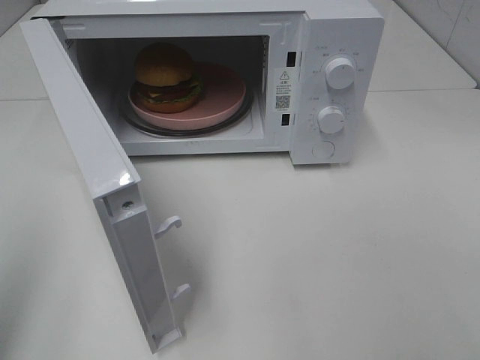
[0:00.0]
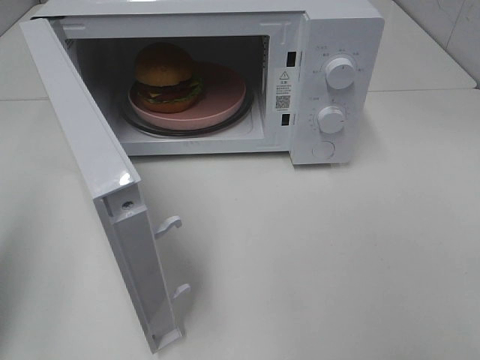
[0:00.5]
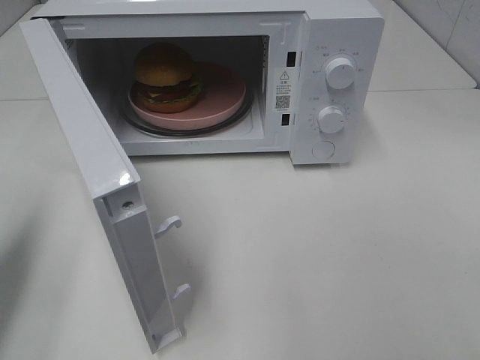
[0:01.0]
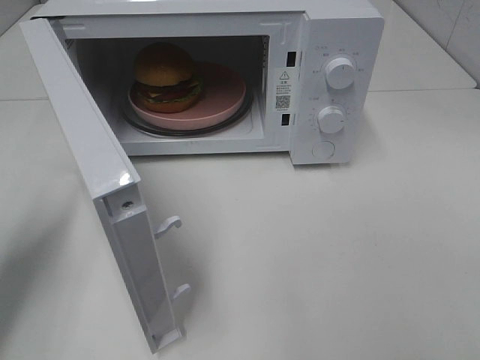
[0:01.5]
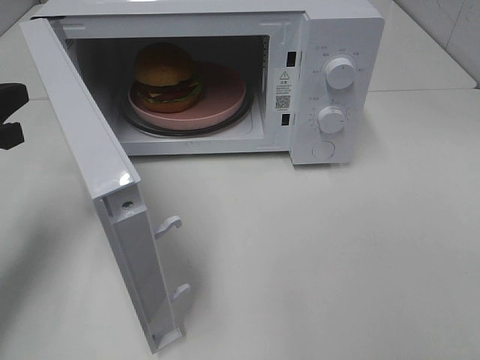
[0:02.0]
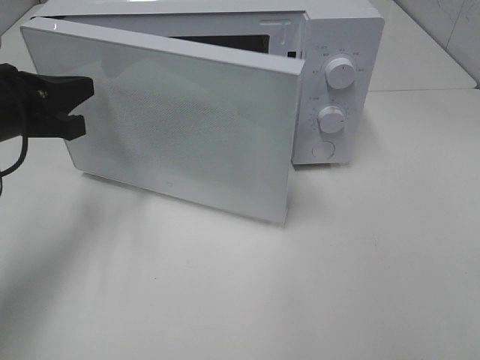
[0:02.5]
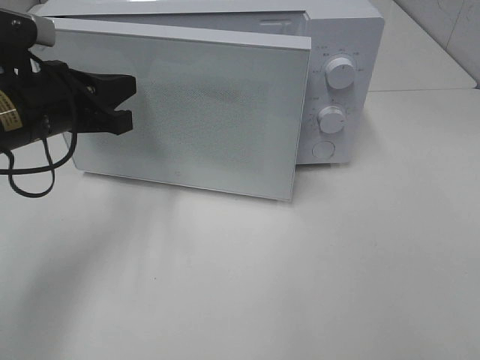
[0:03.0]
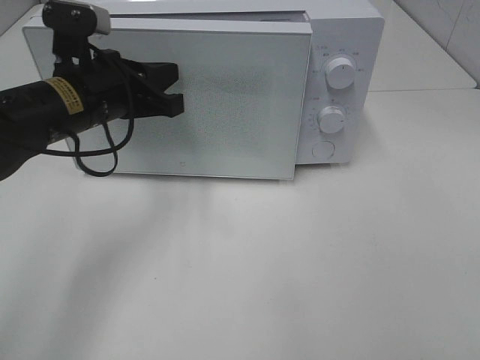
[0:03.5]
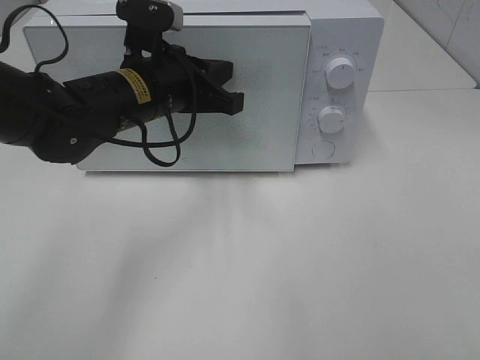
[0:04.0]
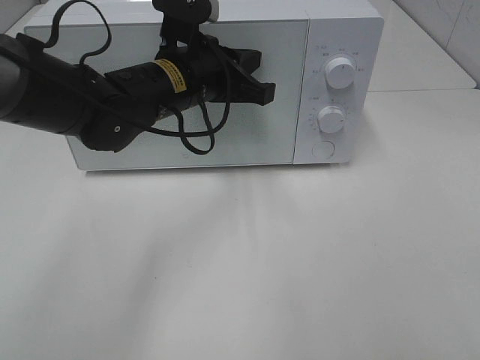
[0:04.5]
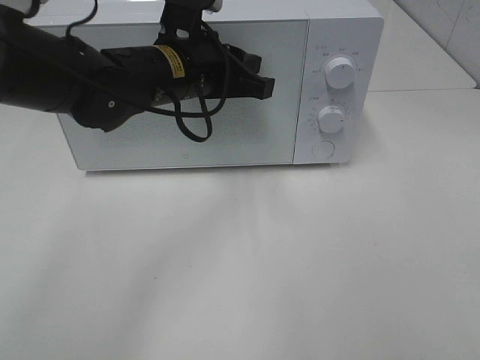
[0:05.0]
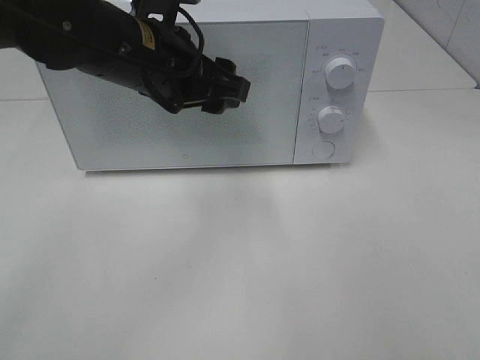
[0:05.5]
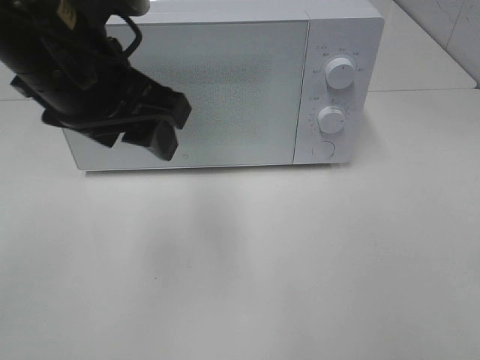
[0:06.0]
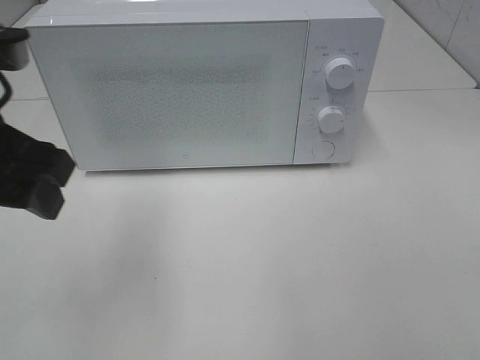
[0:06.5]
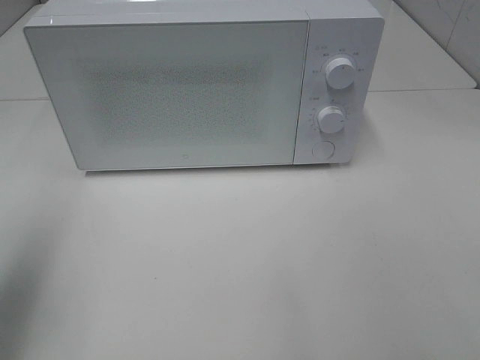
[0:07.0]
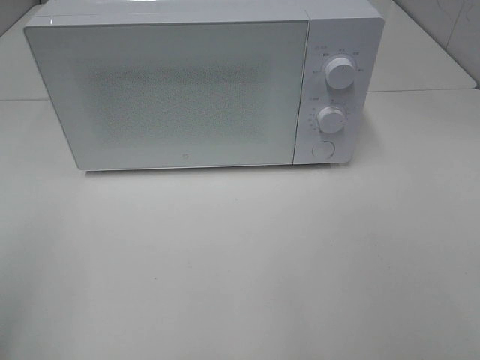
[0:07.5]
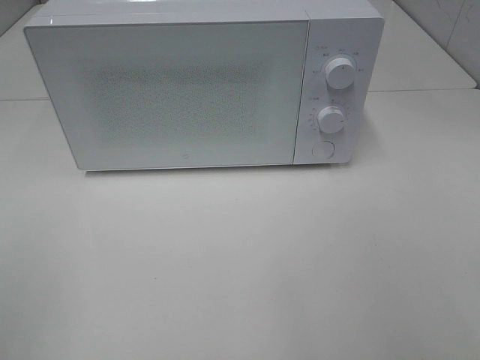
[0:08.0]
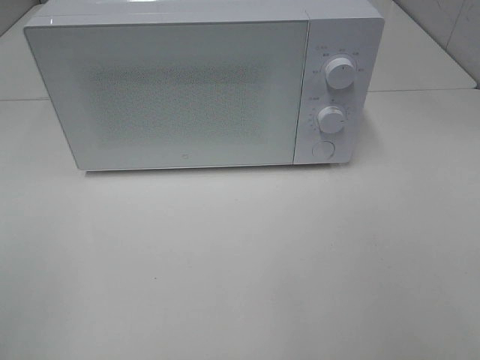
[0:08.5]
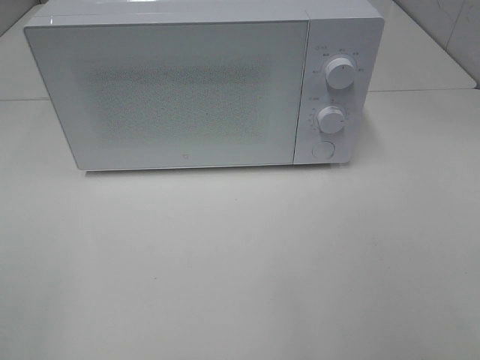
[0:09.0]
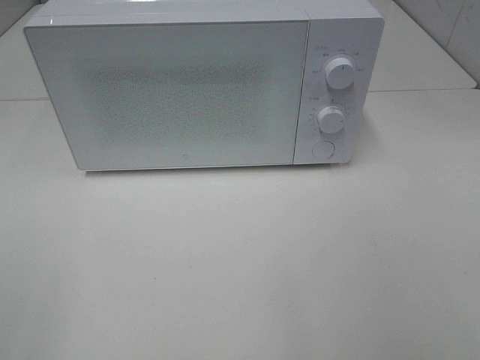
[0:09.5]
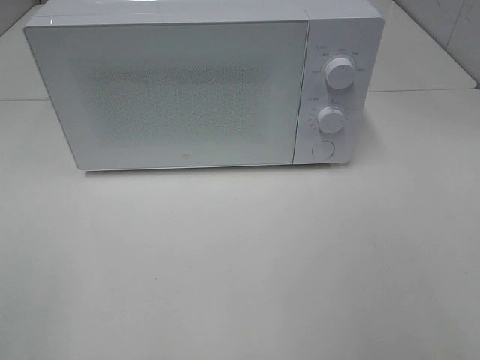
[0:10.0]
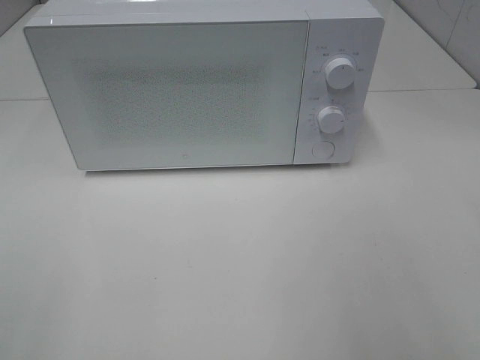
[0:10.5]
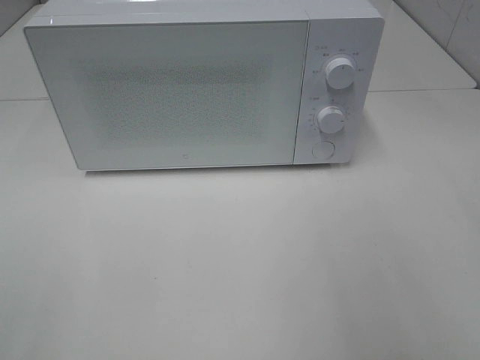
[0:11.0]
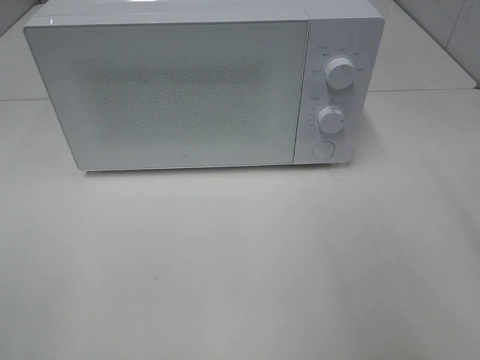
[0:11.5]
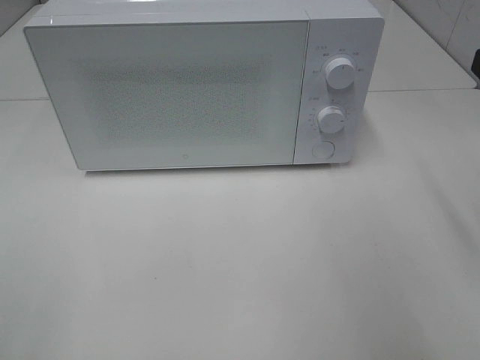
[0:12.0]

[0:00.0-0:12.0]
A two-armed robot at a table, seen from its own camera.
Task of the whole recording: Heat the burger.
Step, 0:00.0 to 0:04.5: Left hand: close the microwave door.
0:00.0 to 0:02.0: The left gripper is displaced forward and downward by some 20 cm.
0:02.0 to 0:04.0: The left gripper heads to the right, covering approximately 20 cm.
0:04.0 to 0:06.0: The left gripper moves upward and backward, approximately 15 cm, and opens up.
0:06.0 to 0:08.0: The left gripper heads backward and to the left, covering roughly 30 cm.

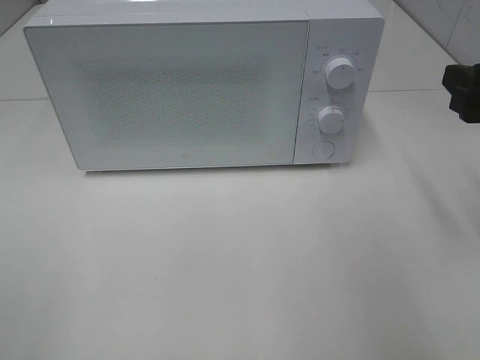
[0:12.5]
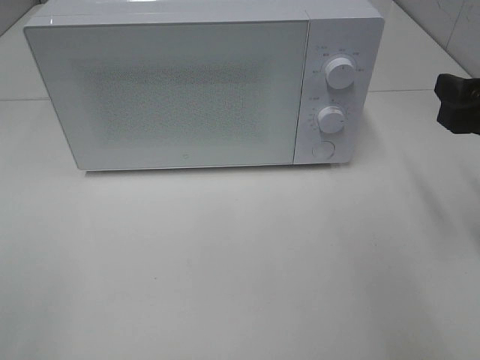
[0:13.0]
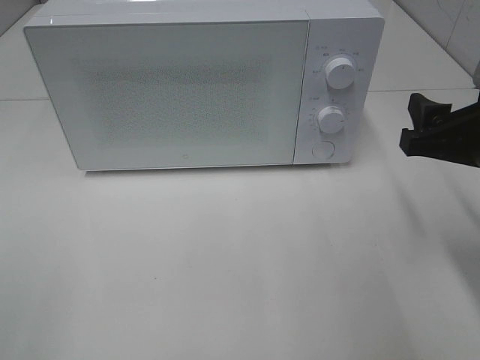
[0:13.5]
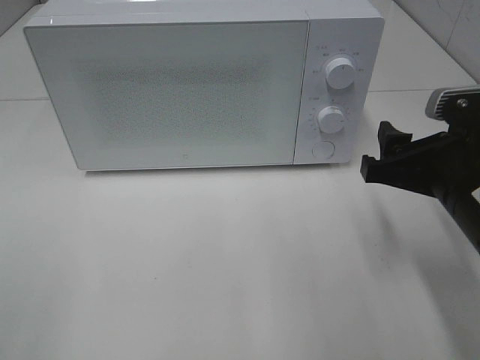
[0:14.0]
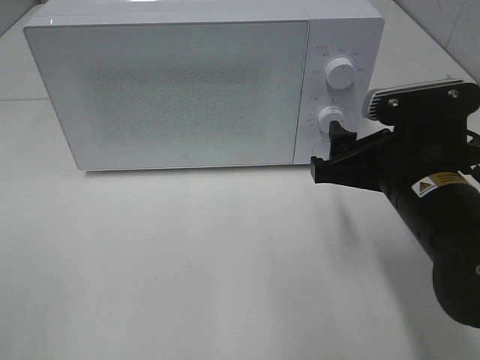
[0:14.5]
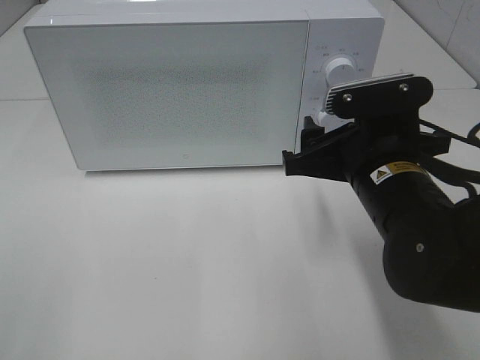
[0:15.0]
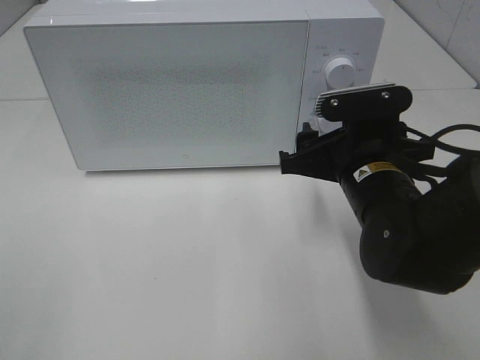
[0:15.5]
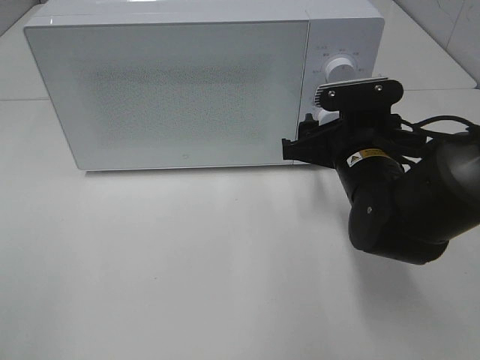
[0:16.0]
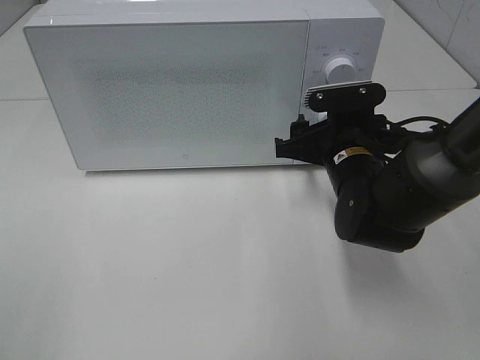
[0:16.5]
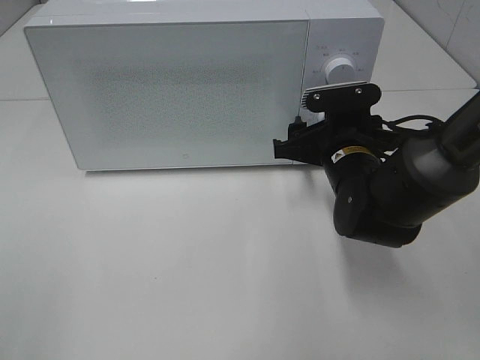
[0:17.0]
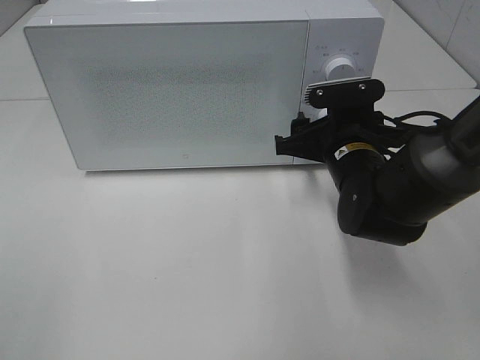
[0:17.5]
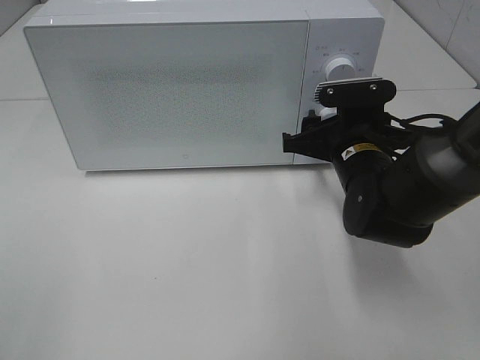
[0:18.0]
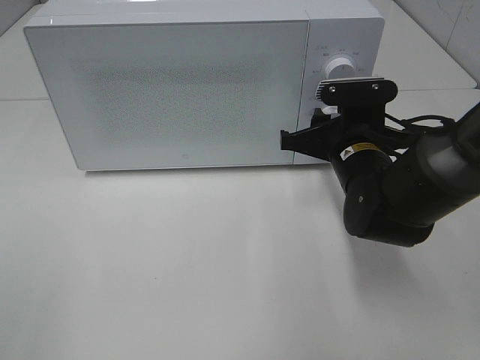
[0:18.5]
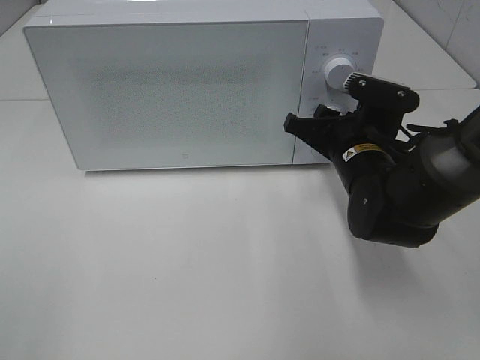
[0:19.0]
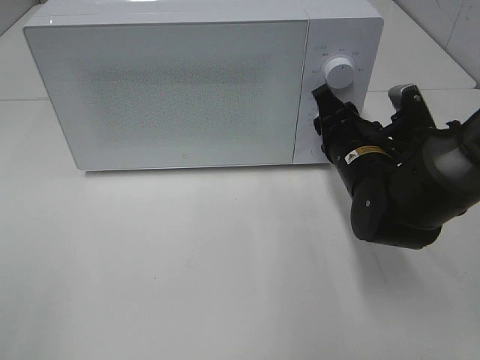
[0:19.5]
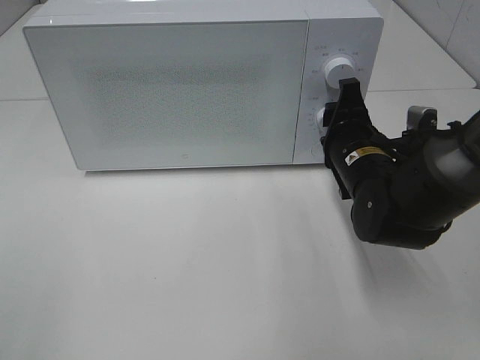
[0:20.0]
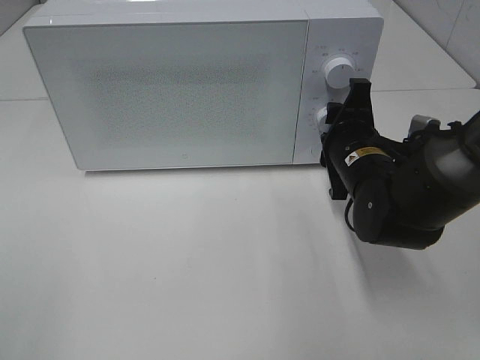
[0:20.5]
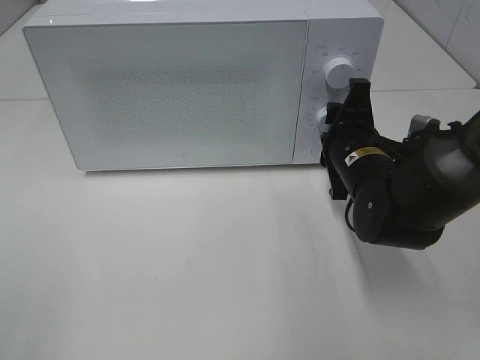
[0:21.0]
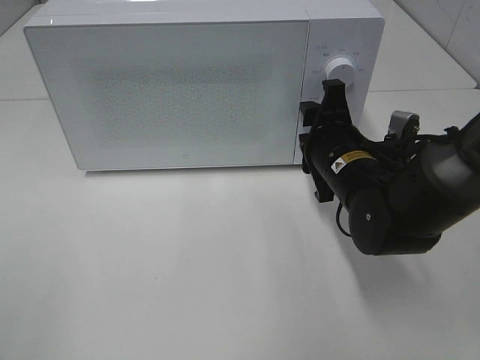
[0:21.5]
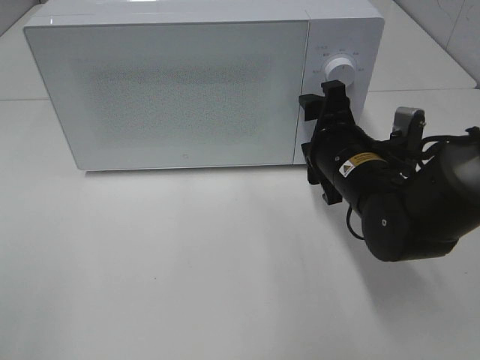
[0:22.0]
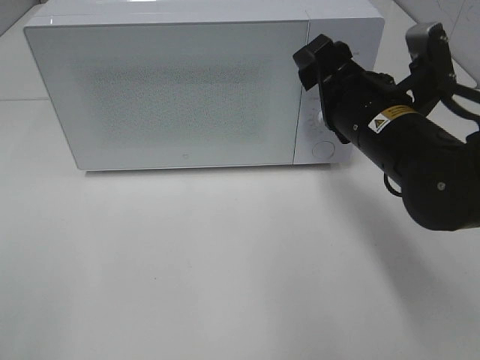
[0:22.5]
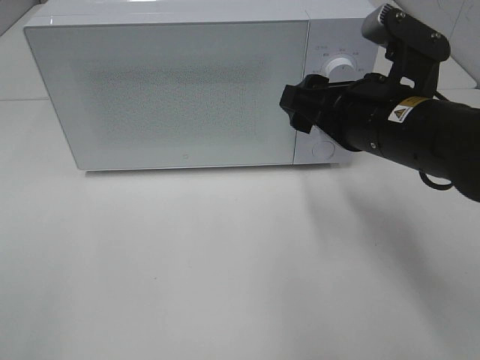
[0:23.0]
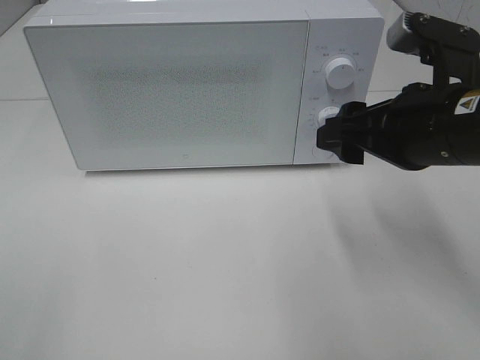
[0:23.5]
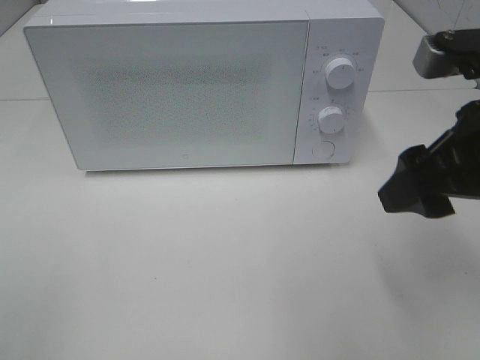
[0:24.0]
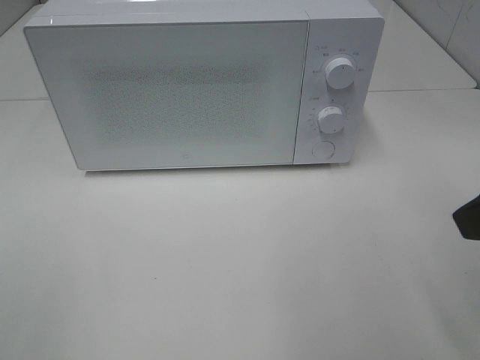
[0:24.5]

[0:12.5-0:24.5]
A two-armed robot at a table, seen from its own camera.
Task of the whole recording: Heat the burger.
Step, 0:12.5 to 0:21.0: Right hand: twist timer button.
0:12.5 to 0:14.5: The right gripper heads to the left and downward, covering roughly 15 cm.
0:14.5 to 0:16.5: The right gripper goes roughly 10 cm forward and downward.
0:16.5 to 0:18.5: The right gripper closes up.
0:20.5 to 0:22.5: The right gripper heads upward, covering approximately 10 cm.
0:22.5 to 0:24.5: The right gripper heads backward, upward and to the right, covering roughly 20 cm.

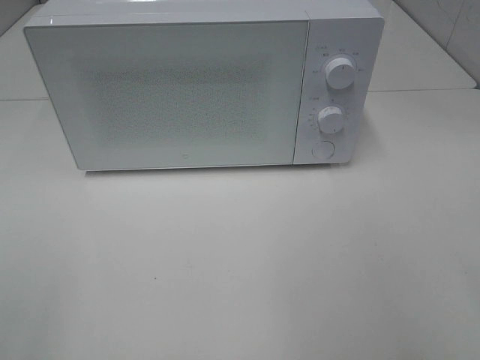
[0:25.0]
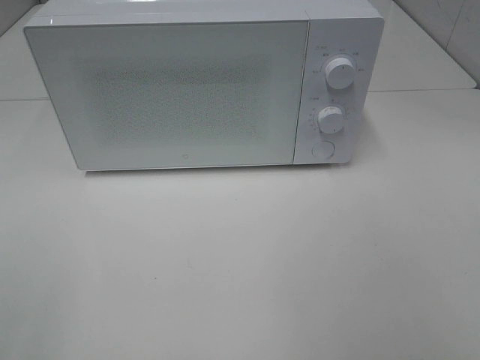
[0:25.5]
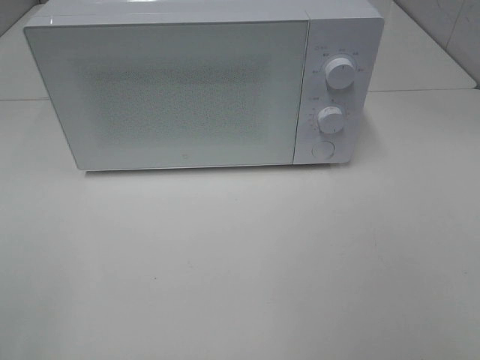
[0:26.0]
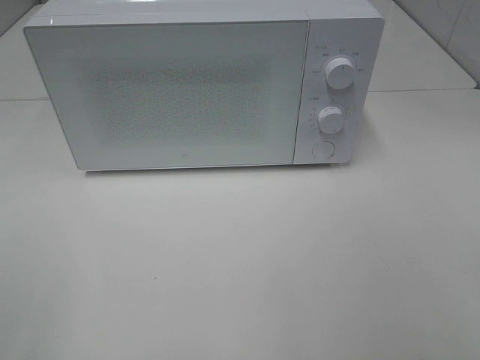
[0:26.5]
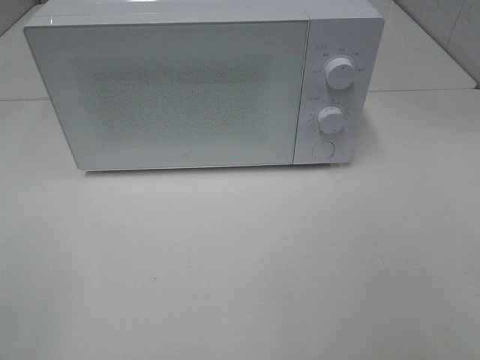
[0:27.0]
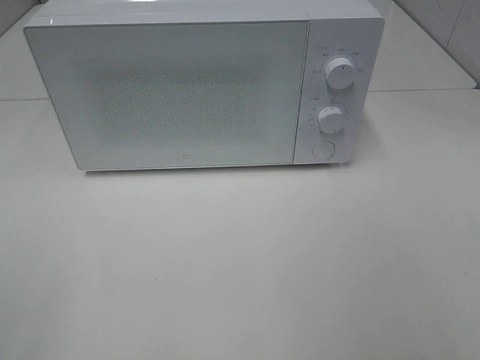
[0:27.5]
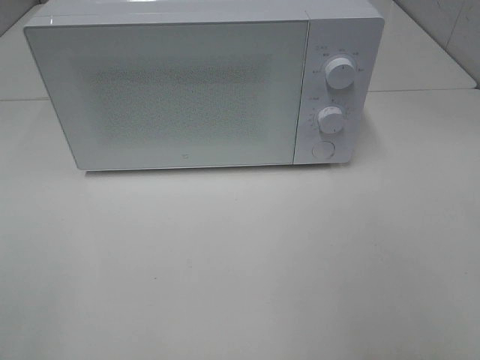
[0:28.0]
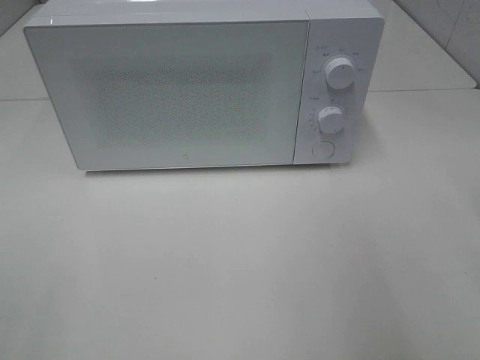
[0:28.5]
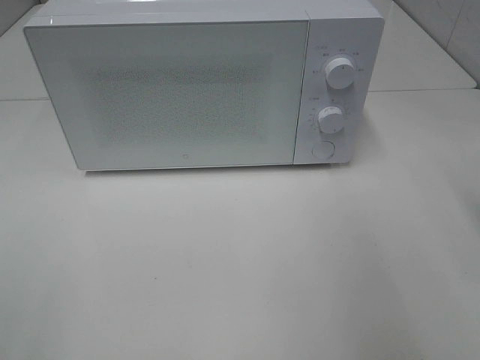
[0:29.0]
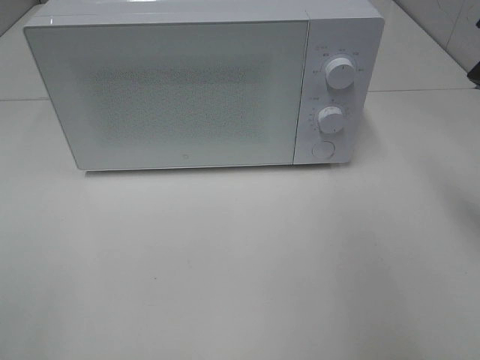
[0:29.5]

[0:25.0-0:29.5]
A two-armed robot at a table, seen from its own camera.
Task of the whole recording: Heat the burger.
0:27.0 to 0:29.5: The right gripper goes roughly 20 cm forward, and closes up.
